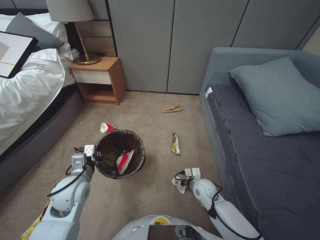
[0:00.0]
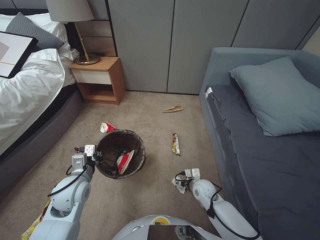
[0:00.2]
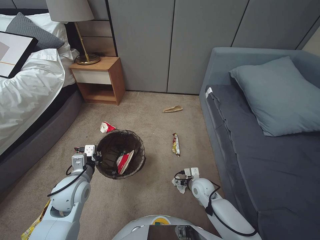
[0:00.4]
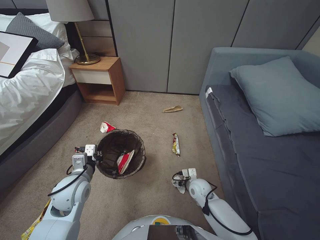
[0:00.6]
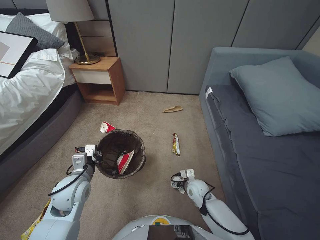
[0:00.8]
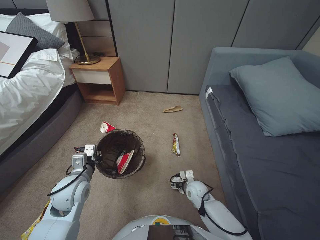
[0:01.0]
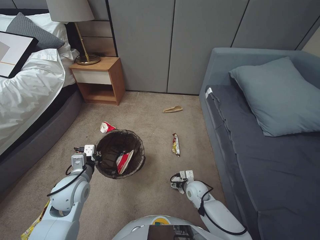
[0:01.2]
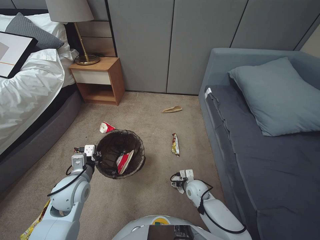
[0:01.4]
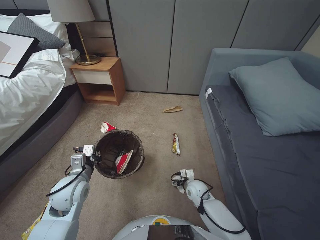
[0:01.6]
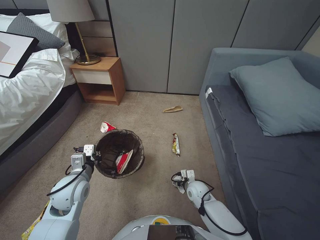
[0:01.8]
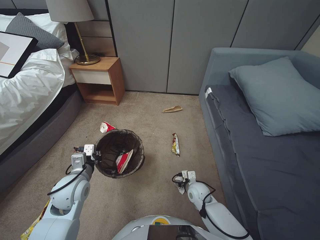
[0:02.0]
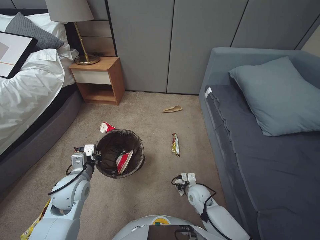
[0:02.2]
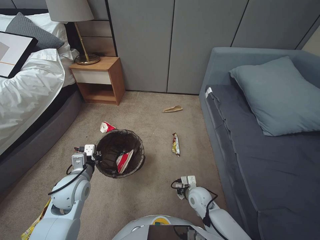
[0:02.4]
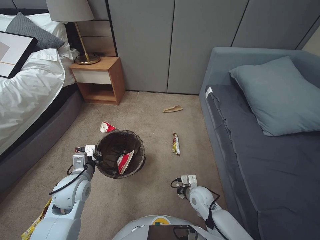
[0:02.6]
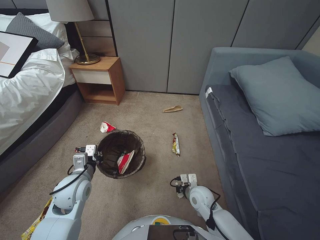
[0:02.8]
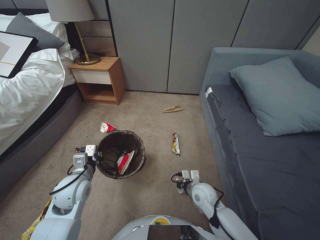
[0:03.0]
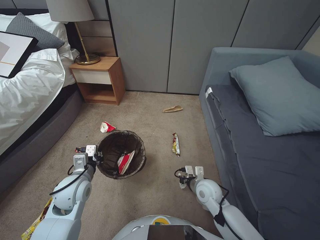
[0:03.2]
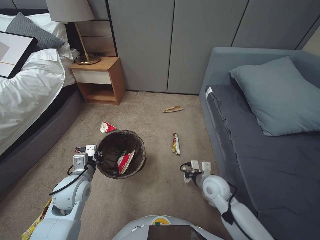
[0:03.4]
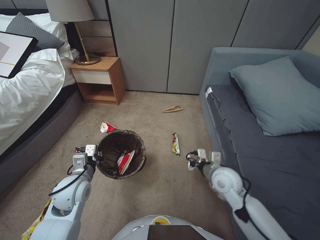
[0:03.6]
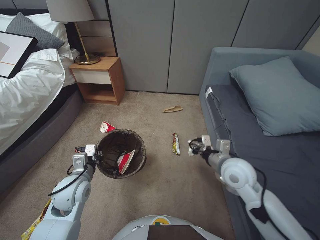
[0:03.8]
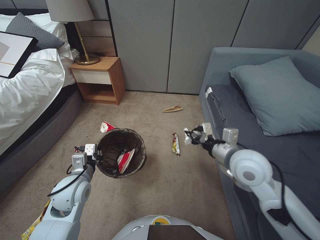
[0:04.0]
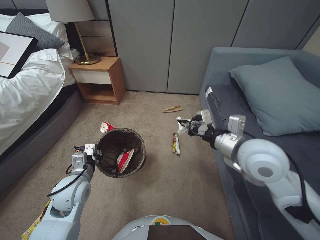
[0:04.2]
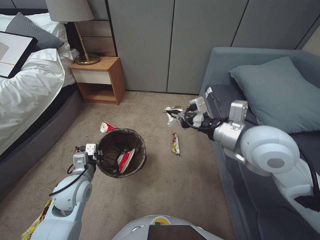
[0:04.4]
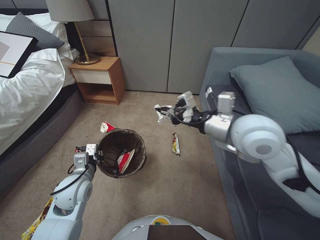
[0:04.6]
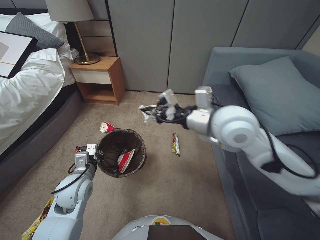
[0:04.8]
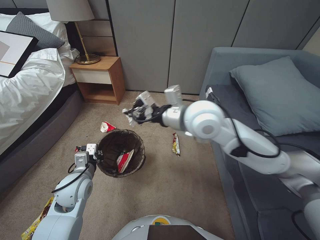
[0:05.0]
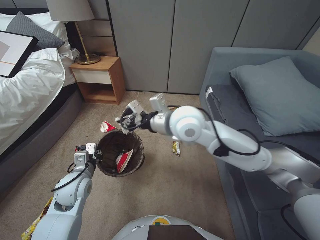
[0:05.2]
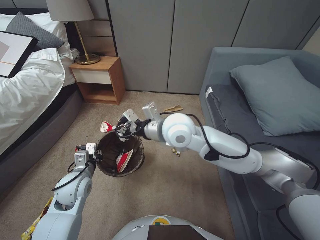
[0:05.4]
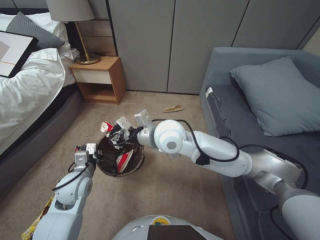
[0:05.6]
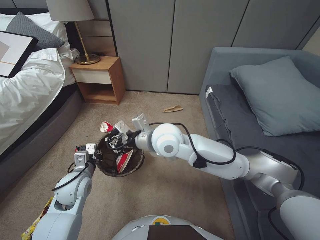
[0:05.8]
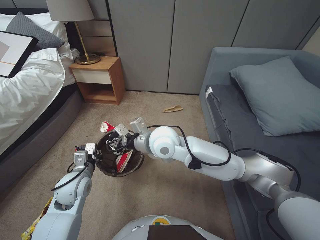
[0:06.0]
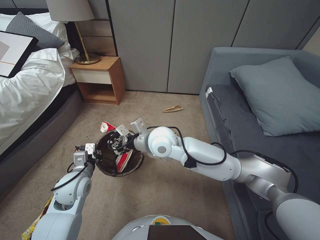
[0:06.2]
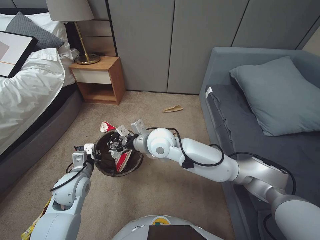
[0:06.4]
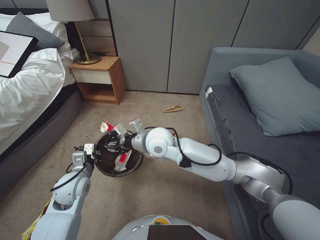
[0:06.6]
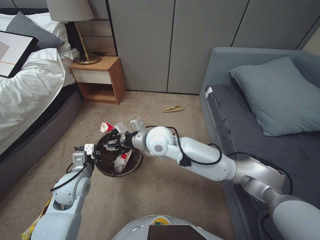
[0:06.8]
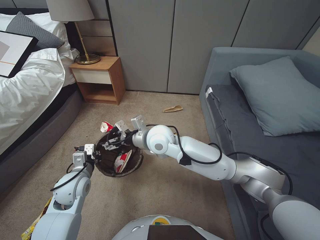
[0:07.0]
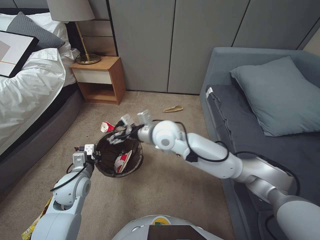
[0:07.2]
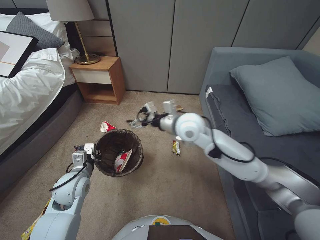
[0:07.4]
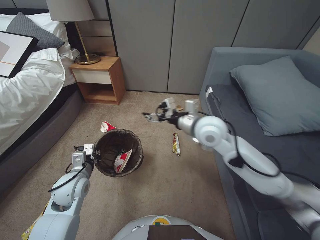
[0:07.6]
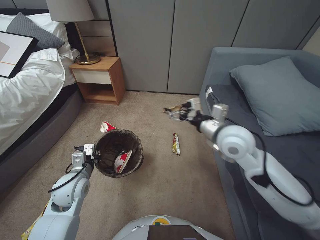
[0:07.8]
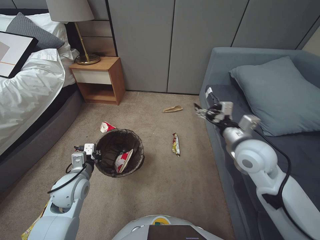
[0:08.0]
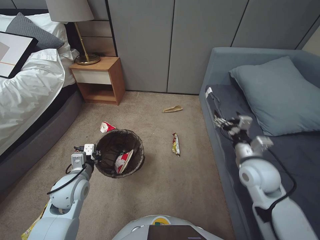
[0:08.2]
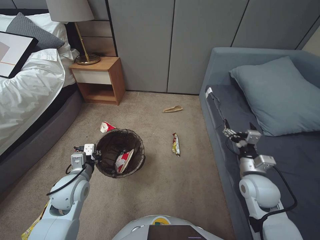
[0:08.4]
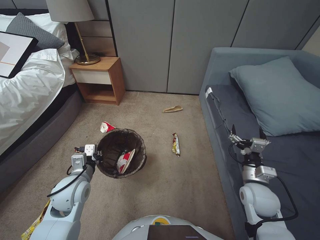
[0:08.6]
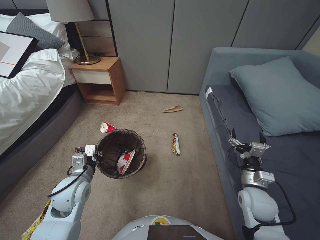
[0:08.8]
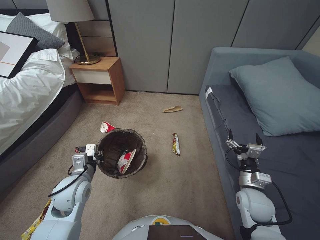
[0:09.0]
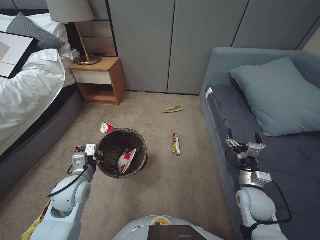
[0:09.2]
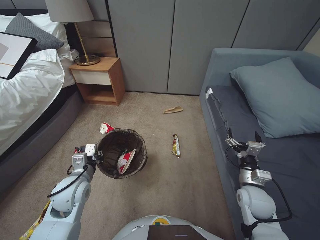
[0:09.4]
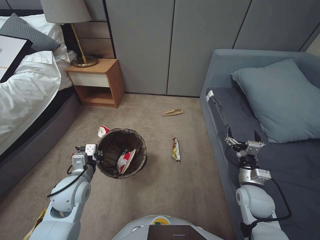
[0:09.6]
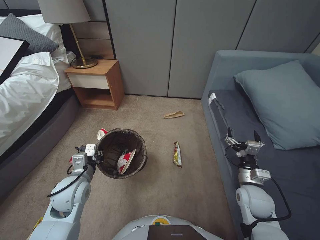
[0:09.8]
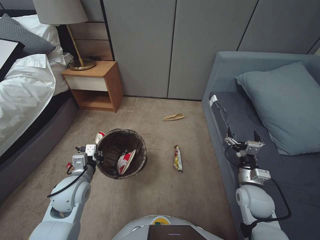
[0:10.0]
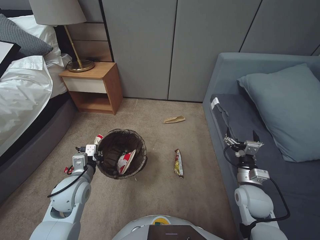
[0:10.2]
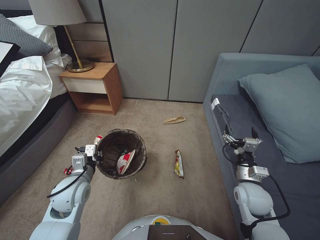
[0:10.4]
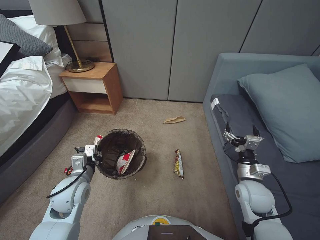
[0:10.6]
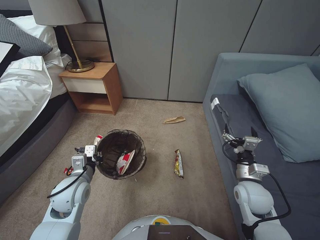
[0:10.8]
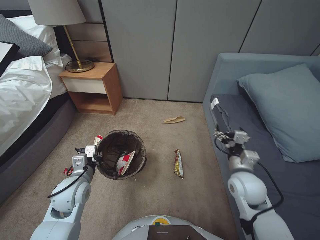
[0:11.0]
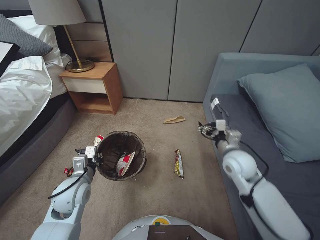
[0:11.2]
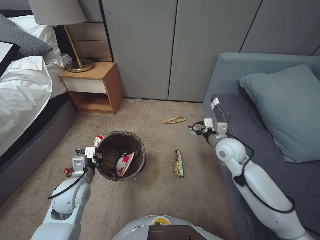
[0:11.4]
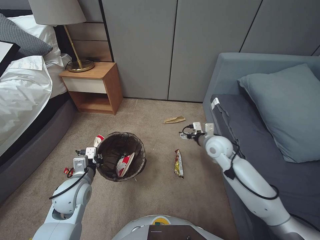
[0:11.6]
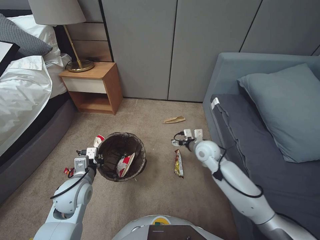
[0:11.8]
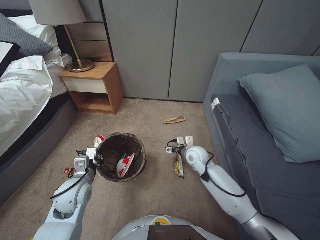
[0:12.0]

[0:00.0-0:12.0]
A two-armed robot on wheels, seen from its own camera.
Task of the whole recording: Pick up the trash bin, then pick up the garbage from the floor and place it into the trash bin.
0:00.0 to 0:01.6: The right gripper heads downward, covering some 5 cm.
0:01.6 to 0:03.0: The right gripper goes approximately 10 cm upward, and closes its fingers.
0:03.0 to 0:04.4: The right gripper travels upward by some 35 cm.
0:04.4 to 0:06.0: The right gripper moves to the left, roughly 20 cm.
0:06.0 to 0:07.6: The right gripper goes some 15 cm to the right, and opens.
0:07.6 to 0:09.0: The right gripper goes some 30 cm downward, to the right and backward.
0:10.4 to 0:12.0: The right gripper goes approximately 20 cm forward and to the left.

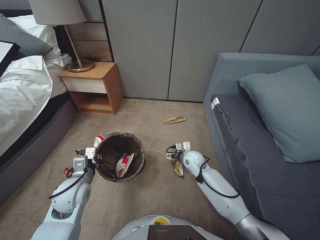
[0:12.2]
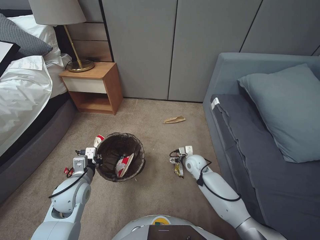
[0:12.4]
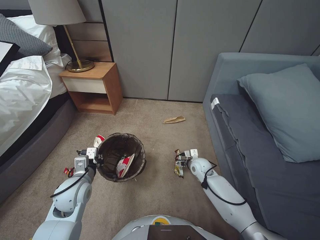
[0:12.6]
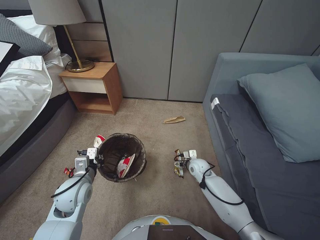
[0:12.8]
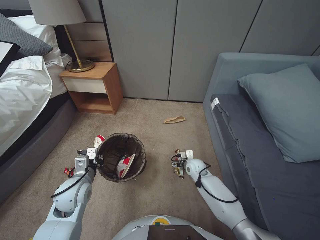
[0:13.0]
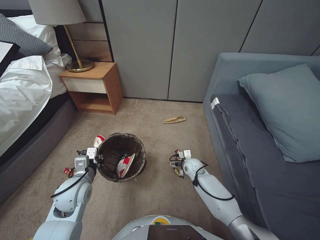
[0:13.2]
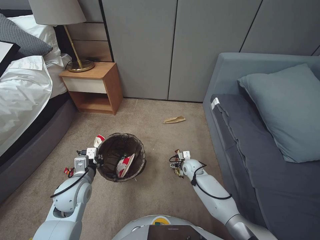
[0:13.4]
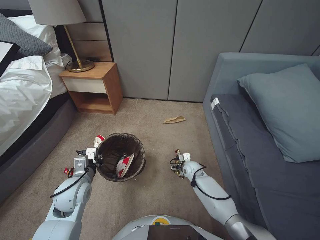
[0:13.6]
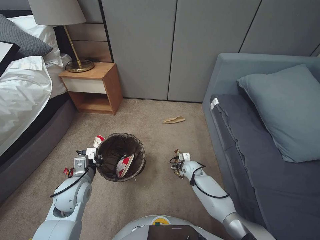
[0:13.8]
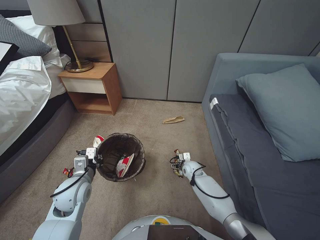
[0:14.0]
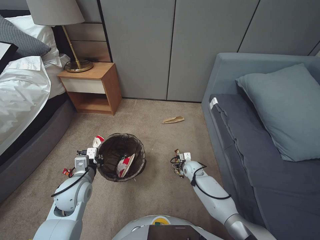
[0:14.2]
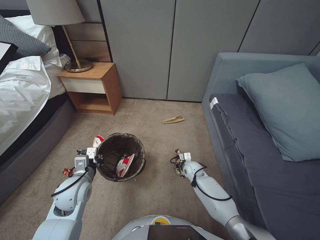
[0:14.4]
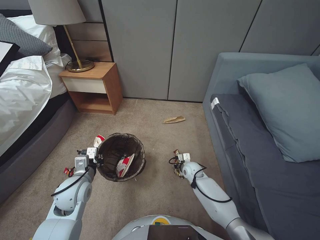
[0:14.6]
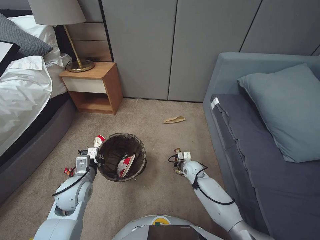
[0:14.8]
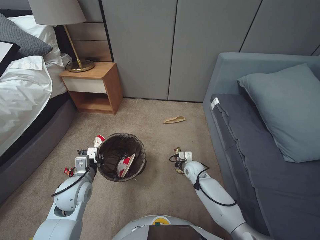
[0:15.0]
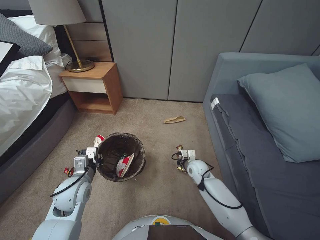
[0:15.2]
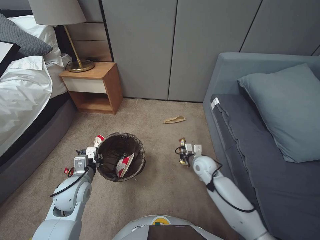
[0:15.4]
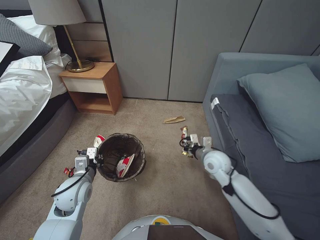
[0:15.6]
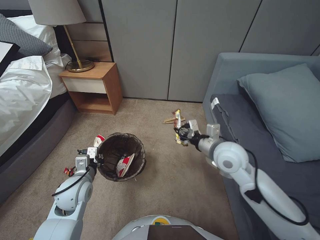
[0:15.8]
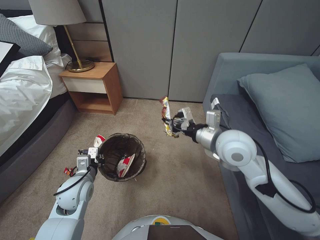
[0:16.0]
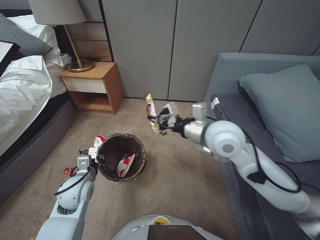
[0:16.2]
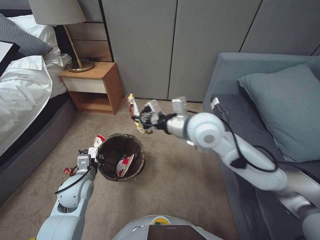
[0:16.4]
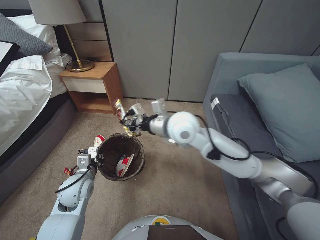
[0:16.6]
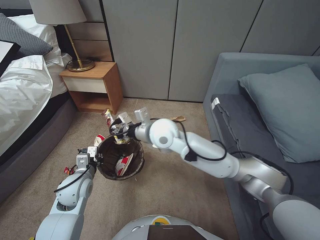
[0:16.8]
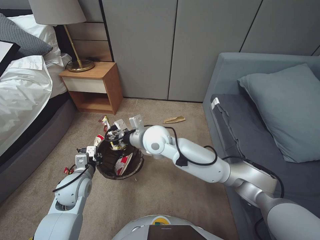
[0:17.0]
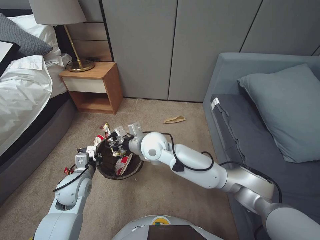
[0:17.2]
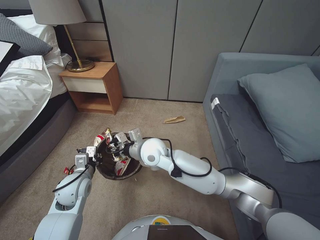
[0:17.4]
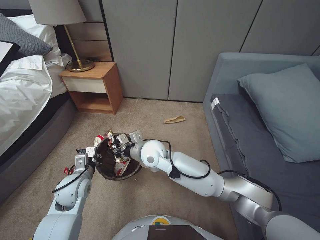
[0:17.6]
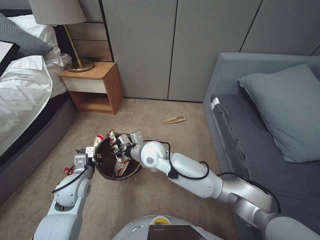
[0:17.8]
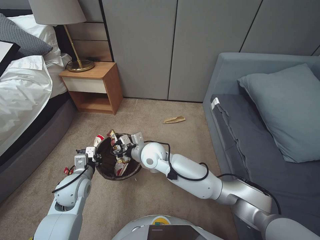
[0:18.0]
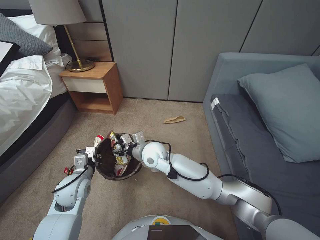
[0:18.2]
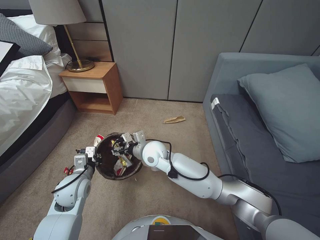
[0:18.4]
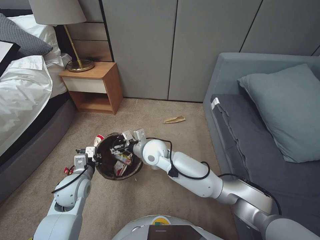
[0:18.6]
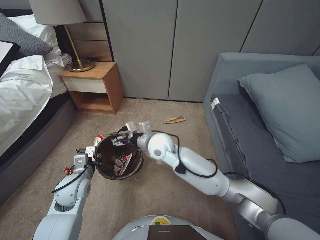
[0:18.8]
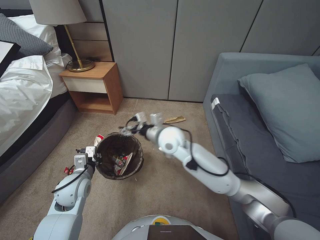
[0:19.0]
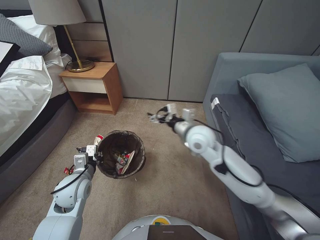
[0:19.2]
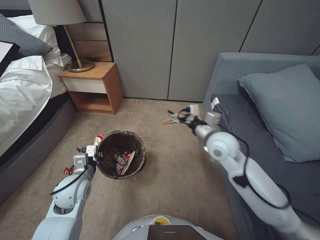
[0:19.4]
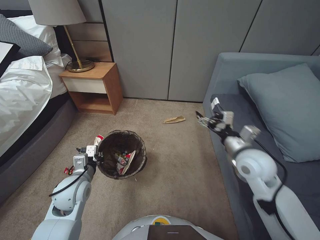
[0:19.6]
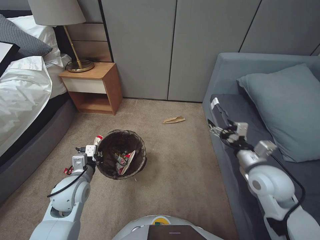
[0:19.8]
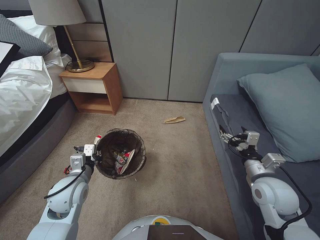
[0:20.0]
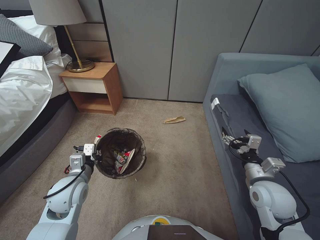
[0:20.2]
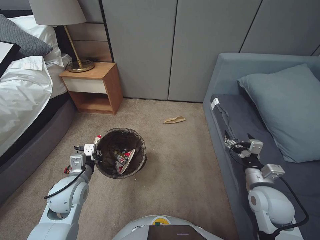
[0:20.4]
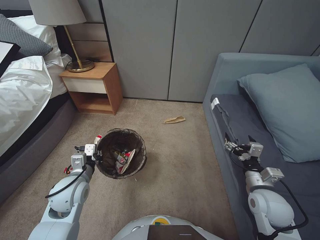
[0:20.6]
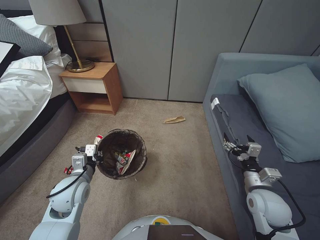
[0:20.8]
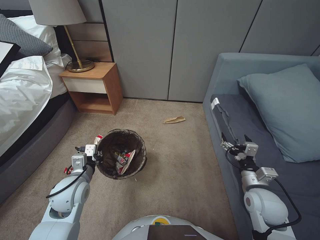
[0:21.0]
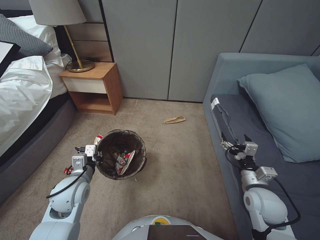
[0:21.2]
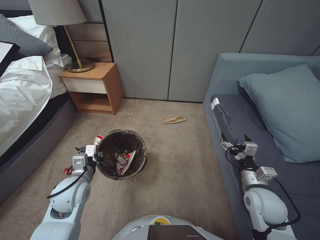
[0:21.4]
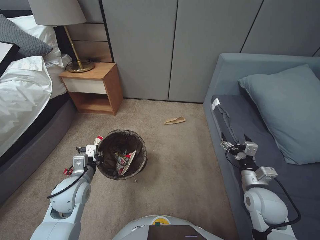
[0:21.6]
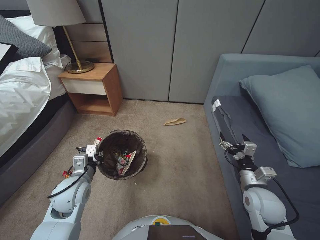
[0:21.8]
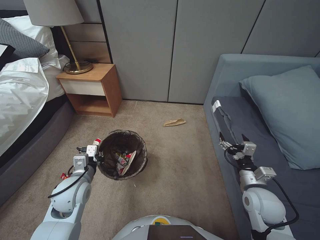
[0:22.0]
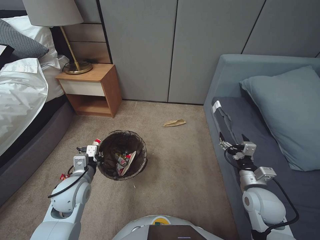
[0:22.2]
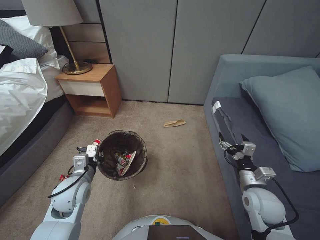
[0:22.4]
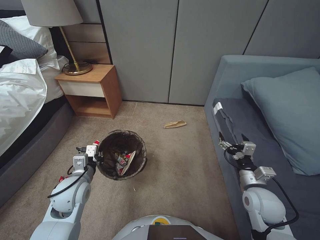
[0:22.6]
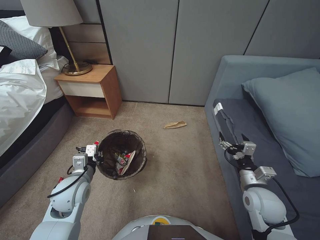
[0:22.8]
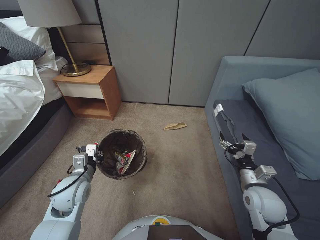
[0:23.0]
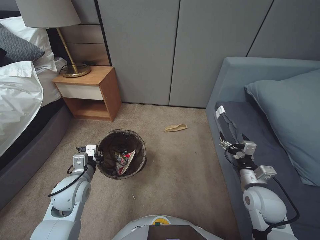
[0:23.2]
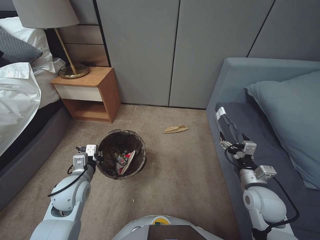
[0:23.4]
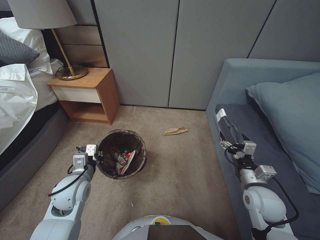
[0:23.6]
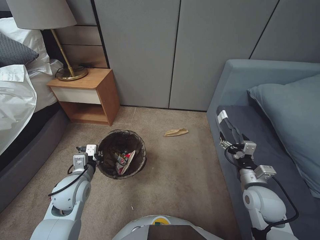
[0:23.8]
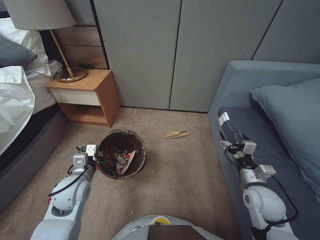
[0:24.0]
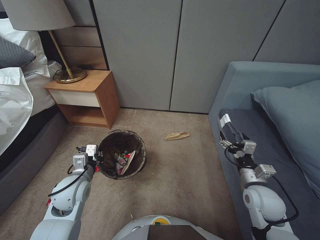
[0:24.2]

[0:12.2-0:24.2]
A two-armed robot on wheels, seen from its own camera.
Task of the whole recording: Pick up the trash bin, then pick up the garbage from the floor and place it into the trash bin.
0:12.2 to 0:13.8: The right gripper travels downward by approximately 15 cm.
0:13.8 to 0:15.2: The right gripper goes some 5 cm upward, and closes.
0:15.2 to 0:16.6: The right gripper shifts about 35 cm upward.
0:16.6 to 0:18.2: The right gripper shifts about 20 cm downward and to the left, and opens up.
0:18.2 to 0:19.8: The right gripper is displaced to the right by approximately 35 cm, and opens.
0:19.8 to 0:21.2: The right gripper moves downward, approximately 10 cm.
0:21.2 to 0:24.2: Both grippers stay put.
